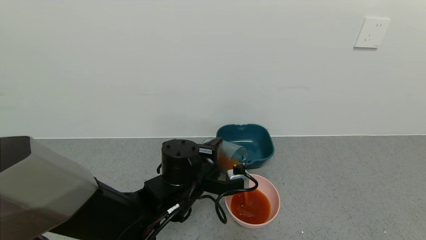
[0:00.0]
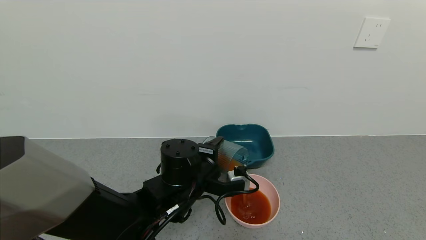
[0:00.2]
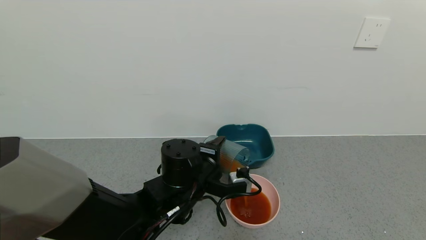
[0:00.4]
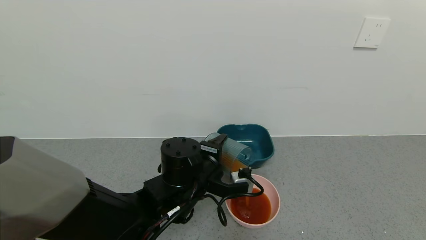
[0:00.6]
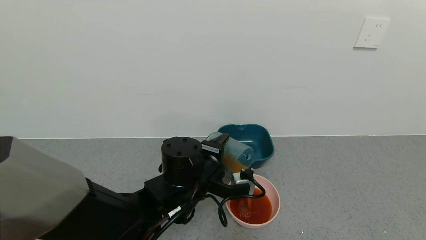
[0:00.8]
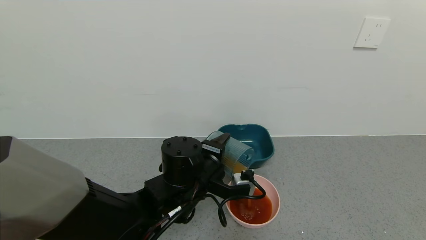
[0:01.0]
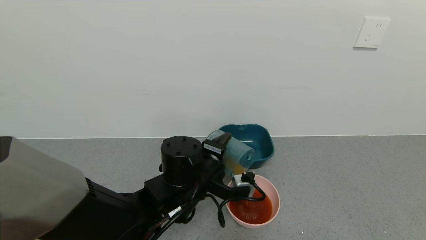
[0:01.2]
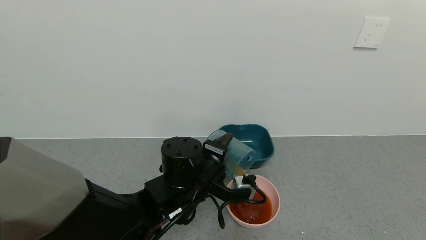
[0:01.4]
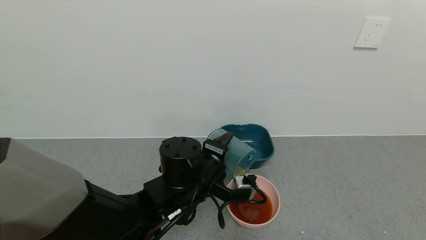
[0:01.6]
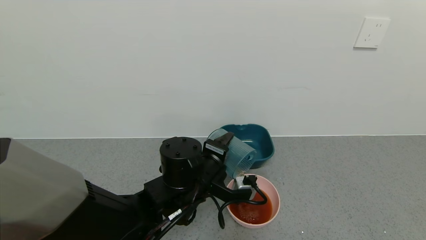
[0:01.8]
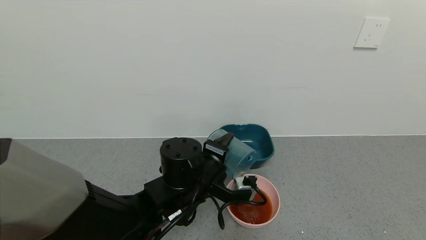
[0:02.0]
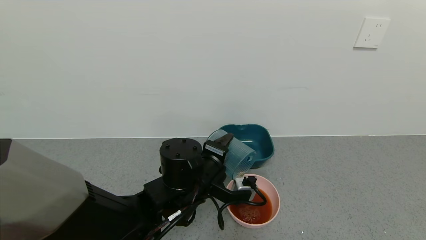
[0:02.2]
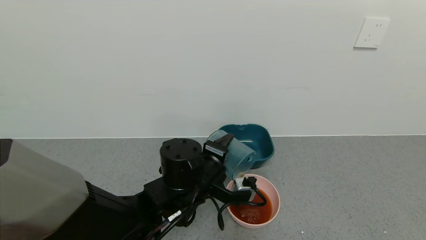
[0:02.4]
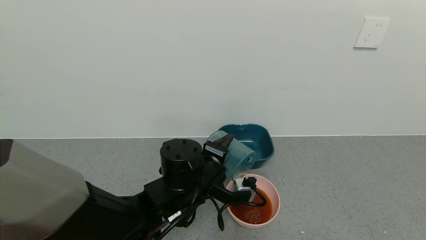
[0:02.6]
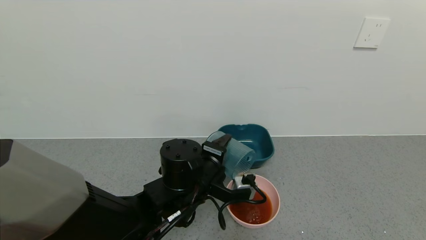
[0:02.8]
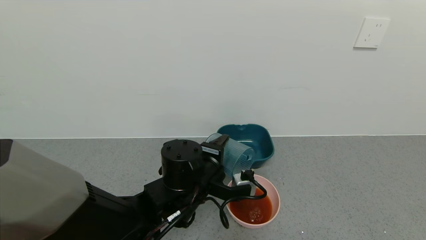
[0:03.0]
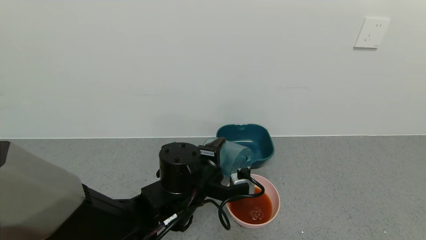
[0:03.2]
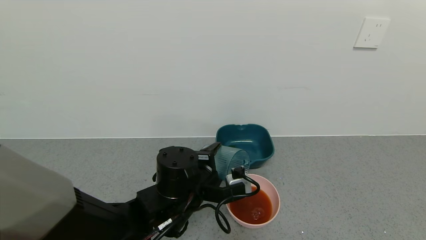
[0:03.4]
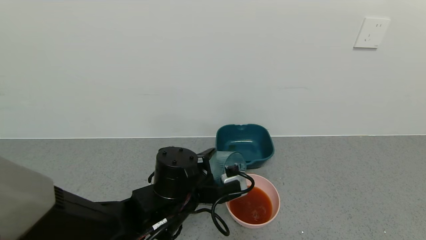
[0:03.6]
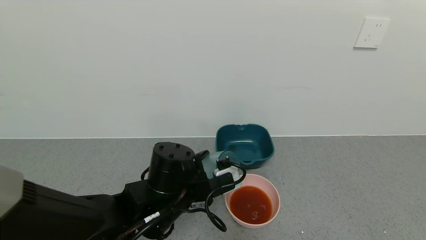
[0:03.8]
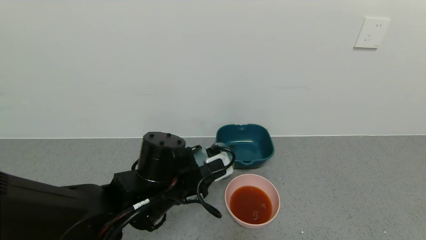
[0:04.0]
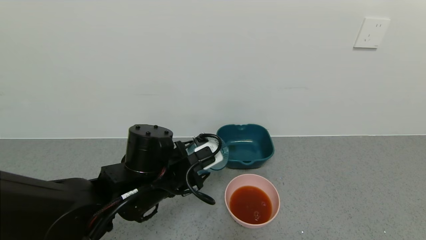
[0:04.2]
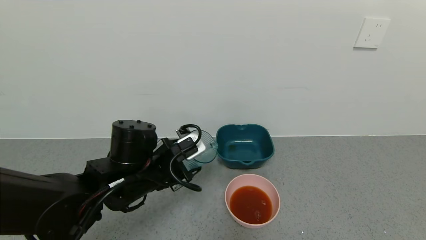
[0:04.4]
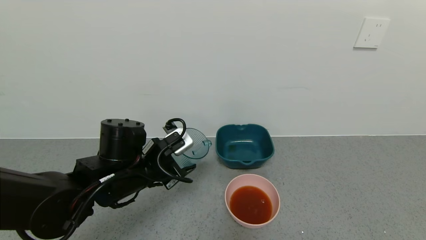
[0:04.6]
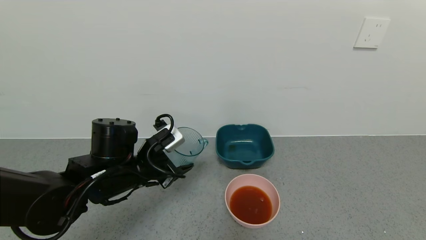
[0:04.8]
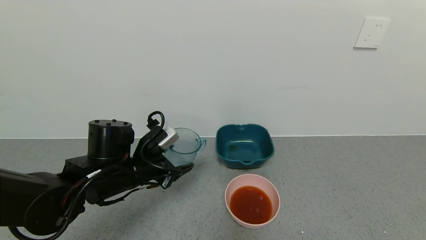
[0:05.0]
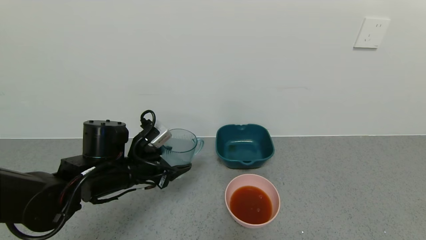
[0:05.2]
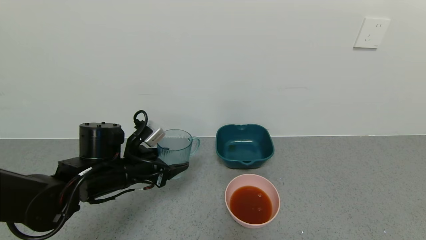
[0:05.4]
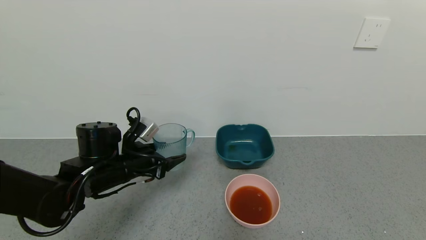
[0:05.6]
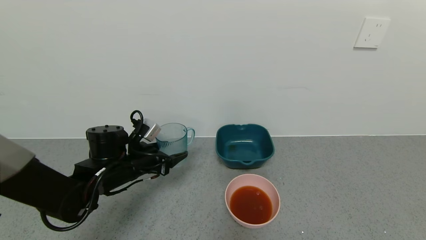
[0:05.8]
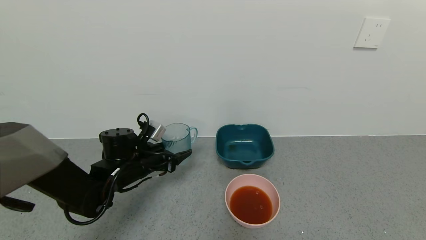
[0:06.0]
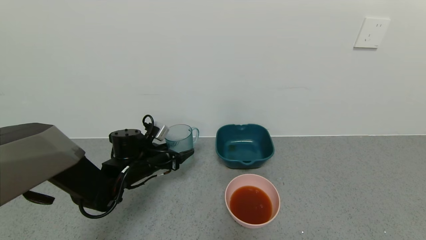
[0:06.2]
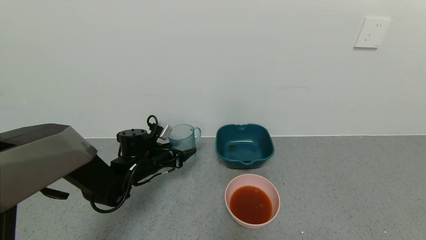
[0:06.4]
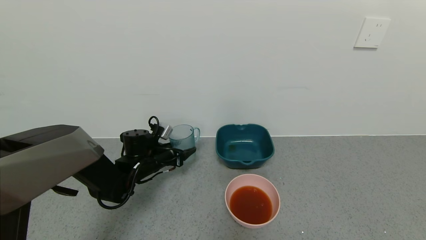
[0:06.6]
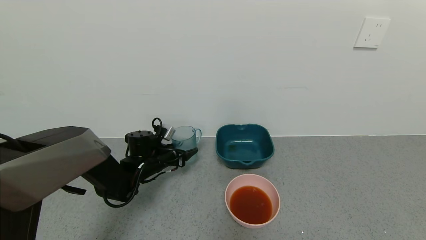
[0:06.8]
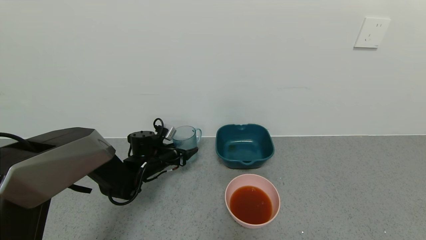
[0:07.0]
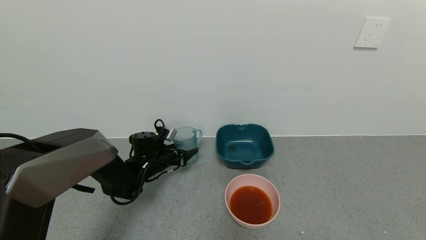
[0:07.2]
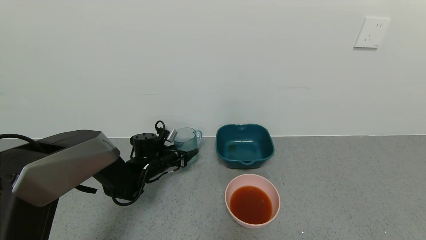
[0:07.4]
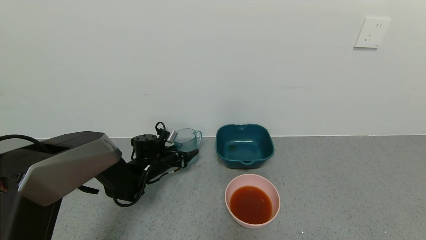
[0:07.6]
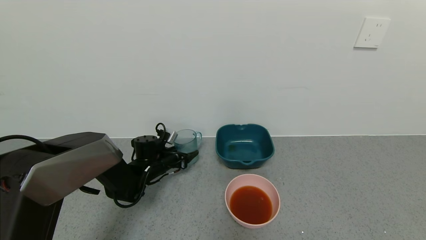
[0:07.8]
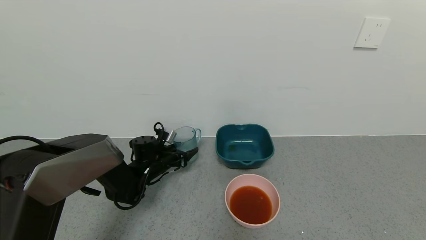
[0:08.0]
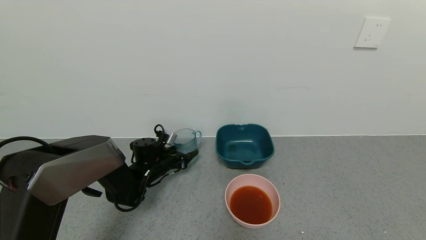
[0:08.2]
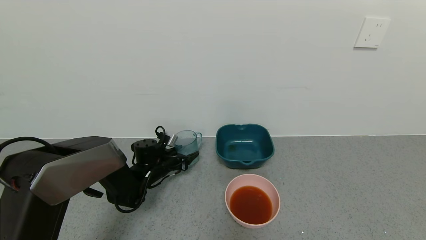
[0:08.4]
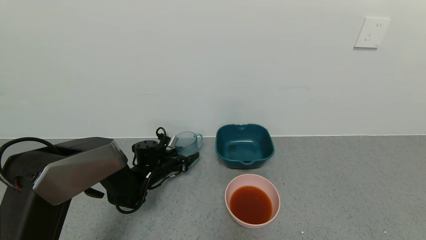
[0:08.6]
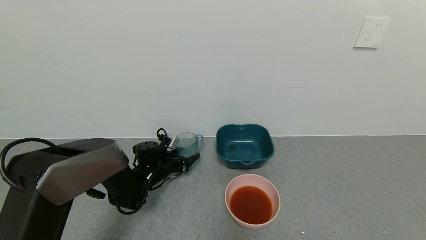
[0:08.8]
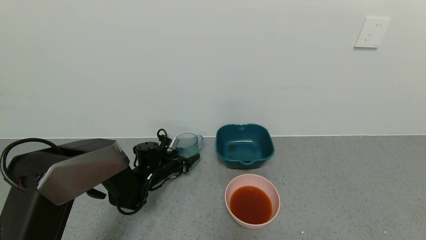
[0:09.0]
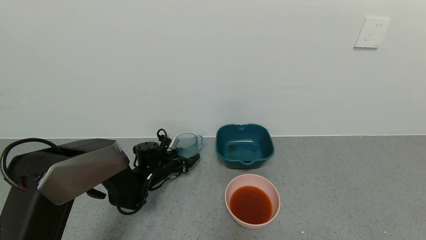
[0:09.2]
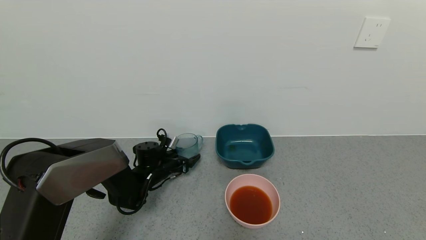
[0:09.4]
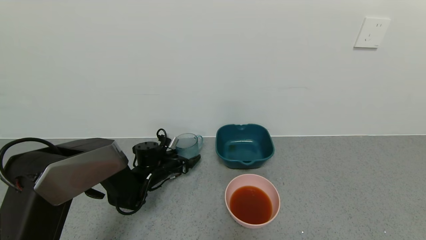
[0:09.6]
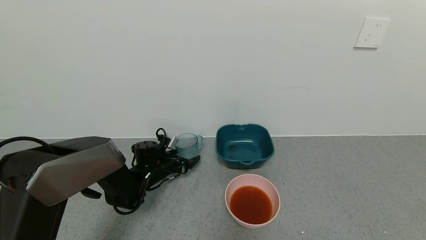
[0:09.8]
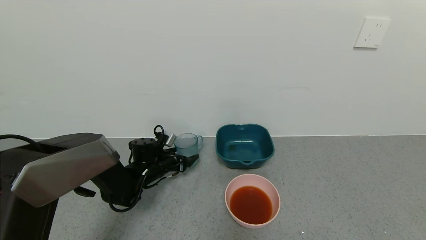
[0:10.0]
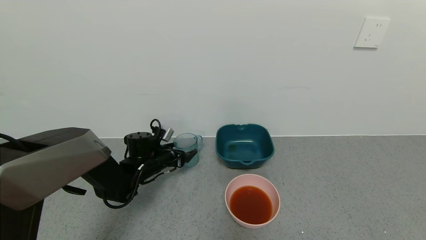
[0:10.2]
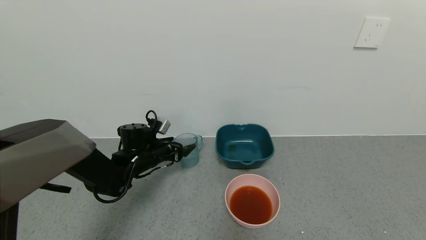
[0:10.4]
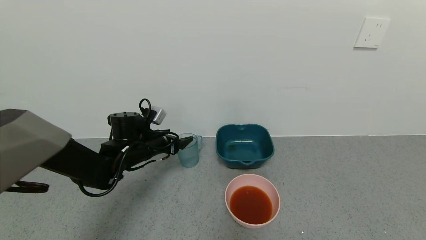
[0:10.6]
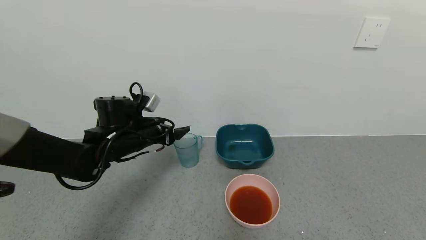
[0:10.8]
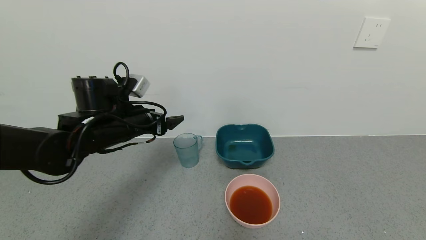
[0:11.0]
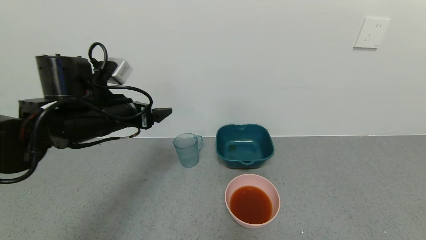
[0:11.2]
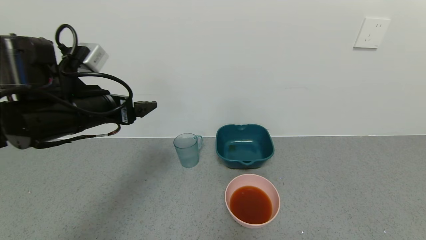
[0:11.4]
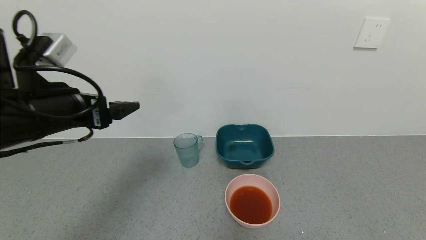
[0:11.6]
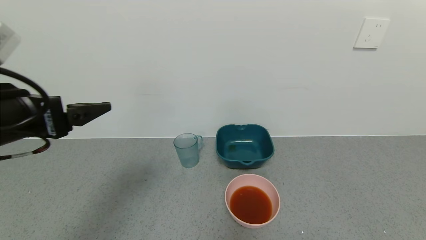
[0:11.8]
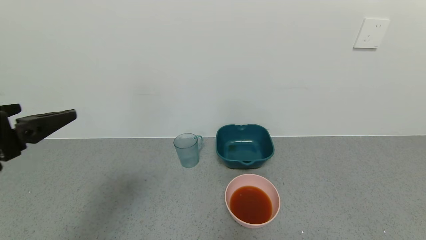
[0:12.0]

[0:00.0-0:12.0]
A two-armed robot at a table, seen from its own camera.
Task of the whole recording: use a gripper to pick up the cup and pour the liquid into a bowl or tray.
Step, 0:00.0 to 0:03.6: Pour the tea into the pink bowl with left gripper.
Step, 0:03.8 to 0:09.8: Place blue cup with tea on the table with left gripper.
0:00.0 to 0:03.0: There are only small adjustments of the grippers.
0:03.0 to 0:04.4: The left gripper shifts about 10 cm to the left.
0:04.4 to 0:06.0: The left gripper is displaced forward, to the left and downward by approximately 10 cm.
0:06.0 to 0:07.6: The left gripper travels forward and downward by roughly 10 cm.
0:07.6 to 0:09.0: The grippers stay close to where they were, moving slightly.
0:09.0 to 0:10.4: The left gripper is displaced upward by approximately 5 cm, and opens up.
0:10.4 to 0:12.0: The left gripper goes about 35 cm backward and upward.

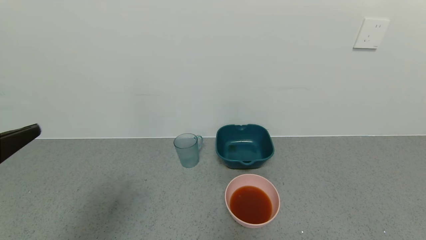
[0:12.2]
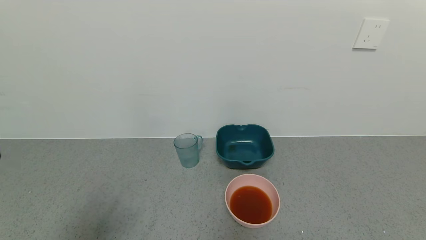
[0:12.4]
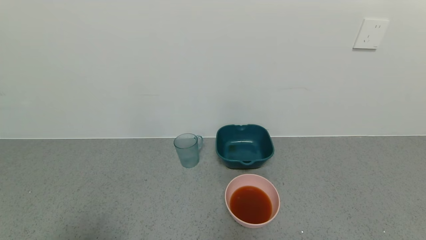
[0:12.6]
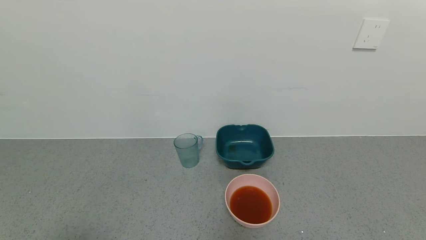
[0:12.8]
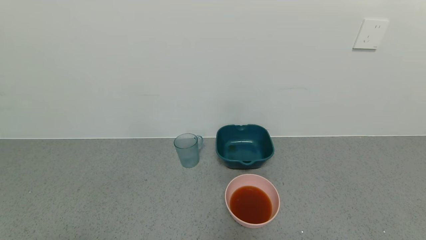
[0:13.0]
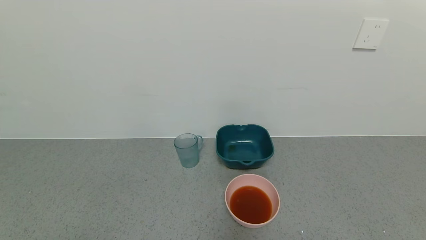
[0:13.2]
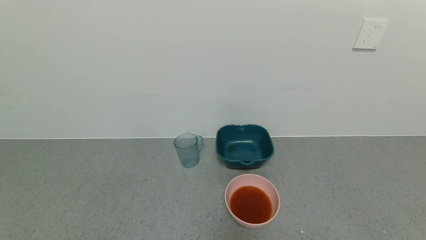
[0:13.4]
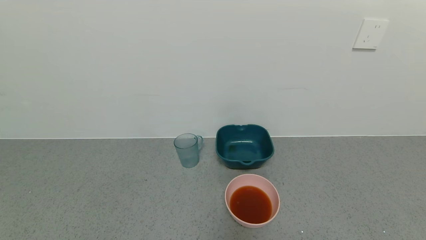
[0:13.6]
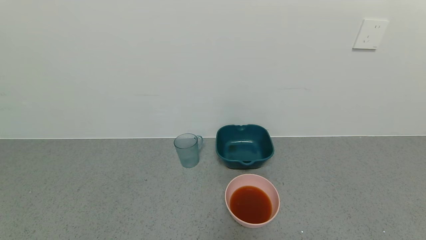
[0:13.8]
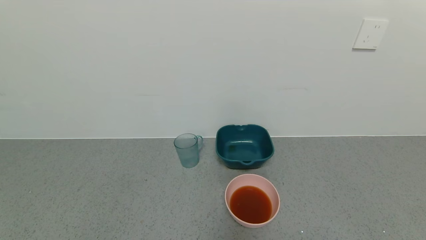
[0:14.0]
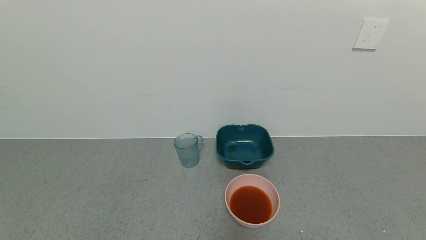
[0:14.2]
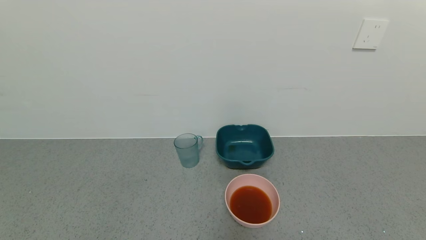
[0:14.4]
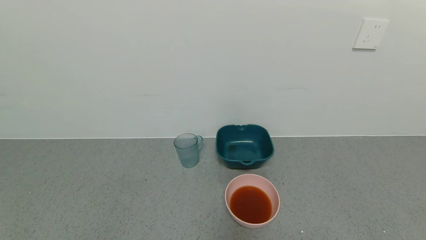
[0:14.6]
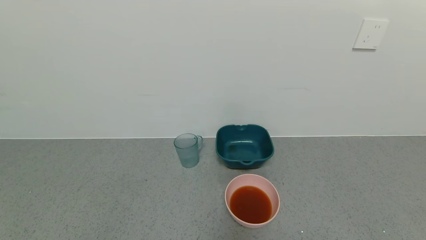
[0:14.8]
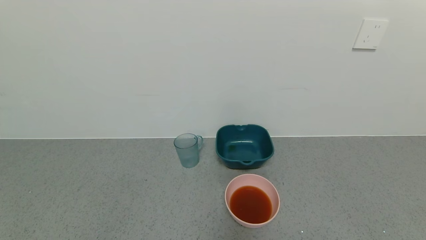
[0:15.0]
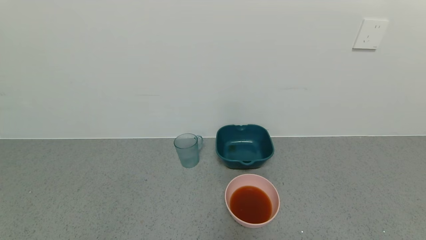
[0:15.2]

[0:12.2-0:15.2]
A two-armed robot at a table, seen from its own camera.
Task of the whole recording: use a gripper to pick up the cup and pour the liquid into a bowl or tray.
0:12.2 to 0:13.8: The left gripper is displaced backward and downward by about 20 cm.
